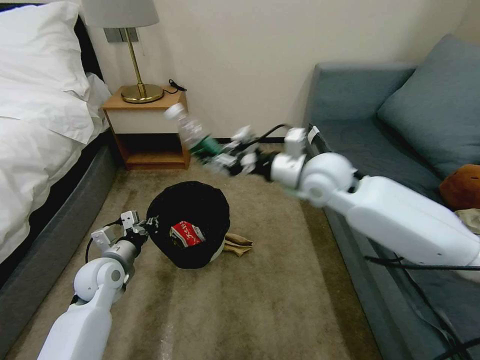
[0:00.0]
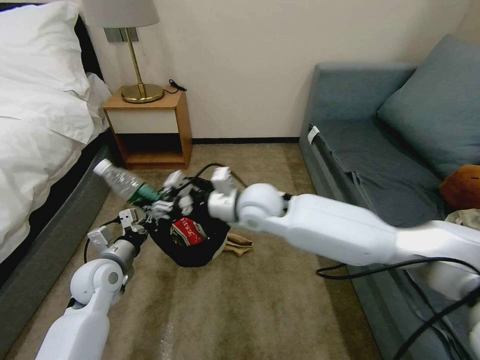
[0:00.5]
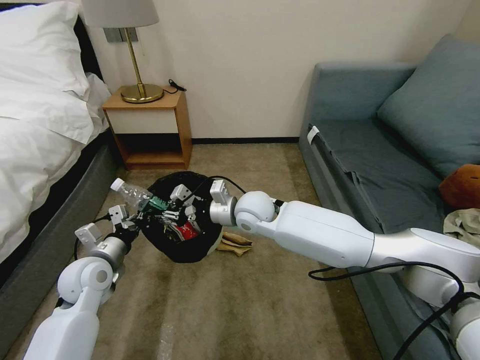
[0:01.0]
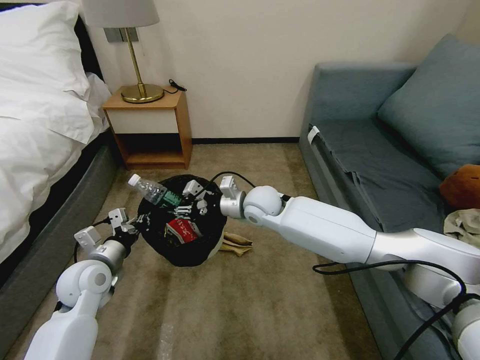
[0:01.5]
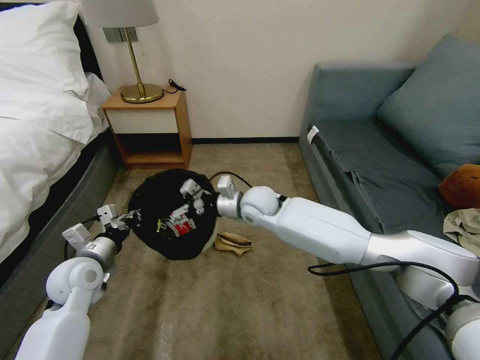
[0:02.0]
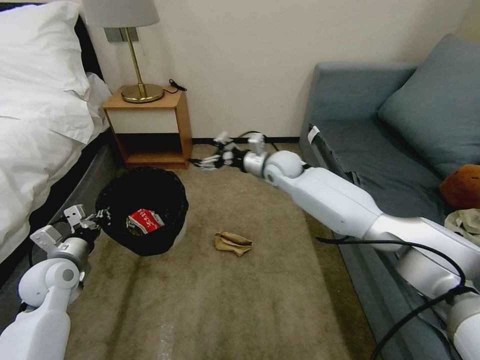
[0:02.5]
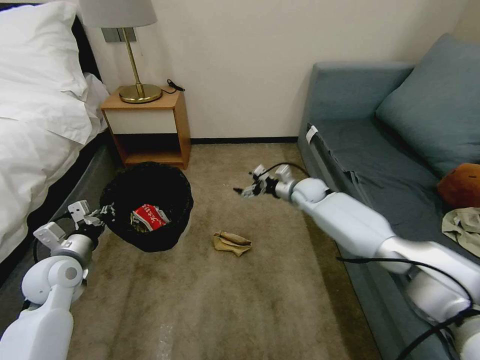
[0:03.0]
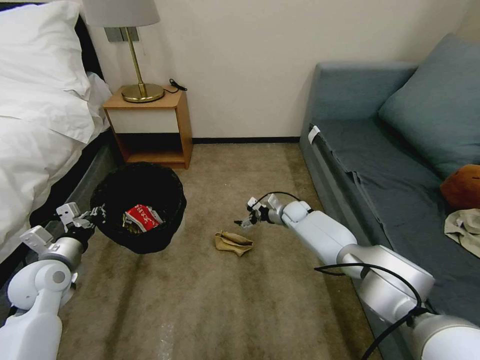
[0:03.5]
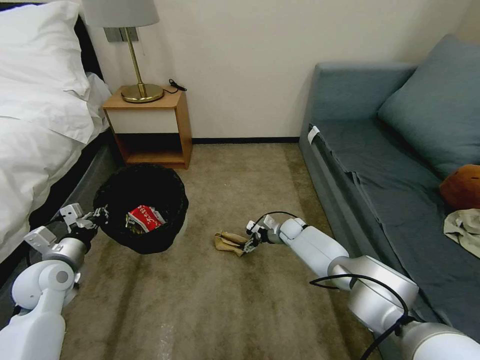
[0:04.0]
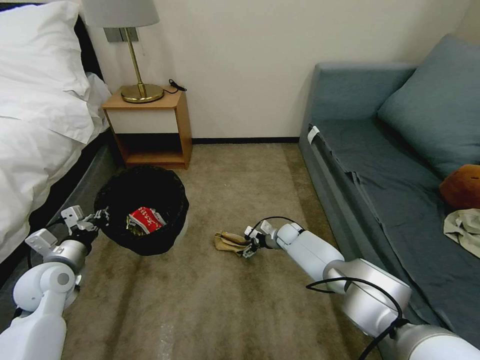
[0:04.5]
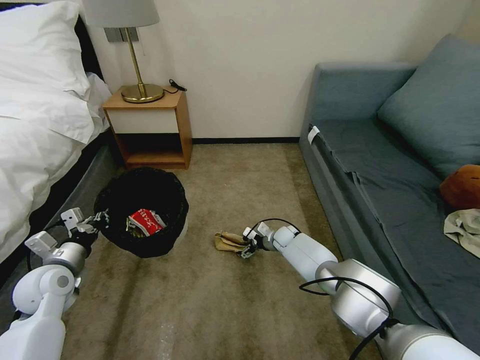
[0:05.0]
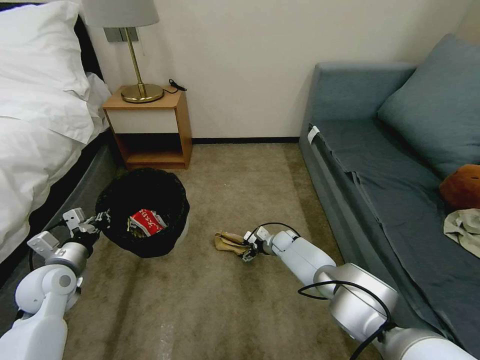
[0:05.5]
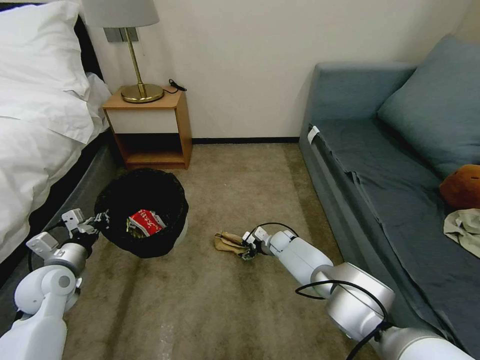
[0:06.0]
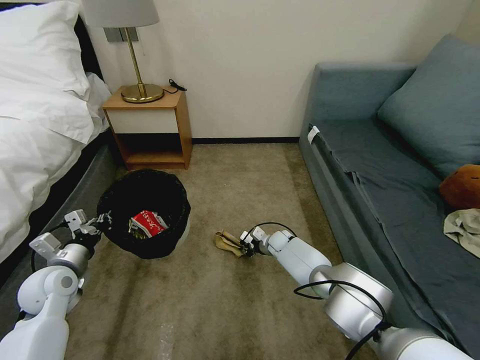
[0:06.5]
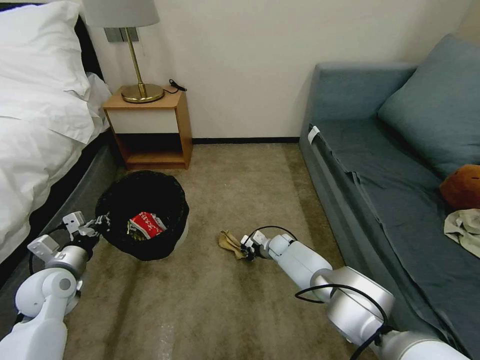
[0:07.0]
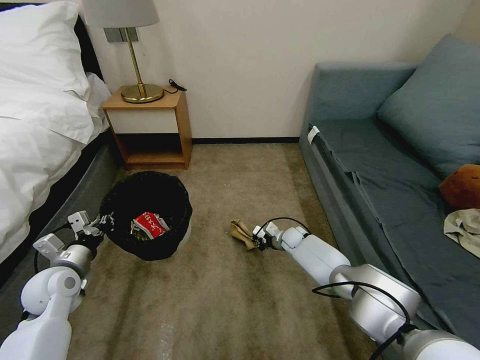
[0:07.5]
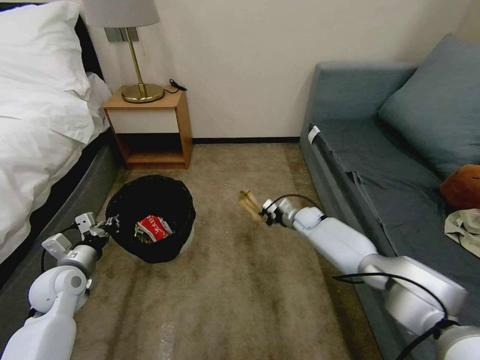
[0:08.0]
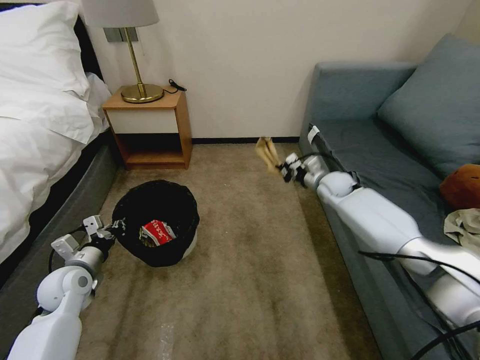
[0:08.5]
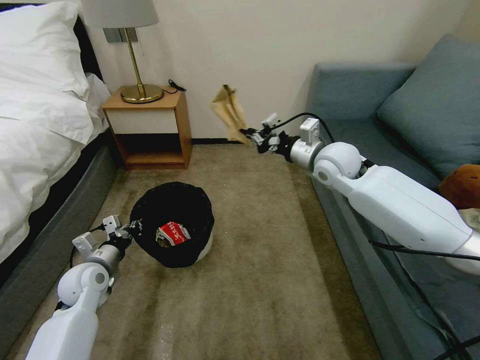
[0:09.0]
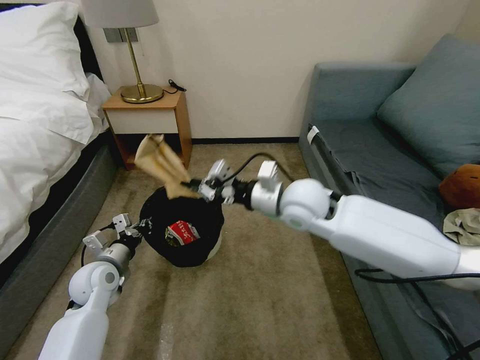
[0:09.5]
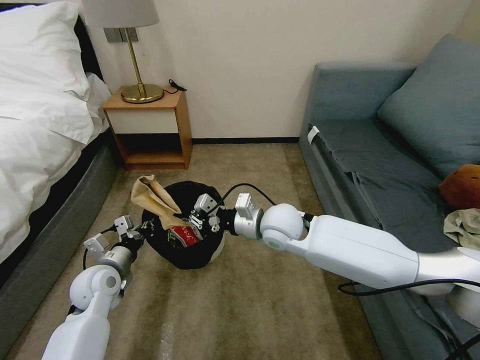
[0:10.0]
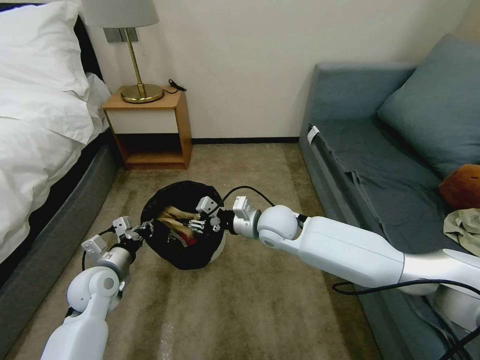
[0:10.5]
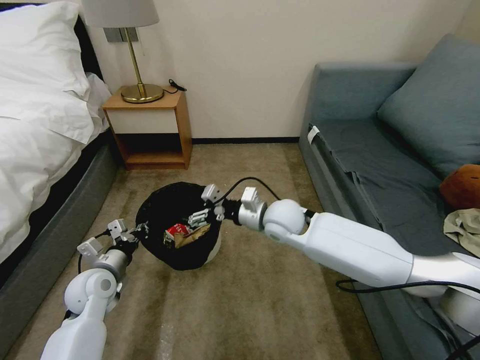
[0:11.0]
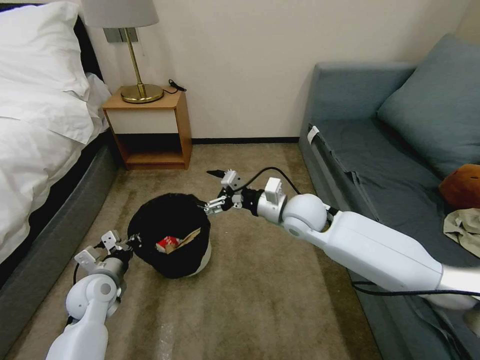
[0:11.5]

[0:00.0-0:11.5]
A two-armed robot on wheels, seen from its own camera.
Task of the whole recording: Pick up the trash bin, then pick up the garbage on the floor and place it into the trash bin.
0:00.0 to 0:02.0: The left gripper shifts by about 5 cm; the right gripper travels to the left and downward by approximately 20 cm, and opens its fingers.
0:02.0 to 0:04.0: The left gripper goes some 5 cm to the left; the right gripper travels downward and to the right by some 30 cm.
0:04.0 to 0:06.0: The right gripper moves approximately 5 cm.
0:06.0 to 0:07.5: The right gripper closes up.
0:07.5 to 0:09.5: The right gripper moves upward, roughly 35 cm. The left gripper shifts roughly 5 cm to the right.
0:09.5 to 0:11.5: The right gripper shifts approximately 5 cm downward, and opens its fingers.

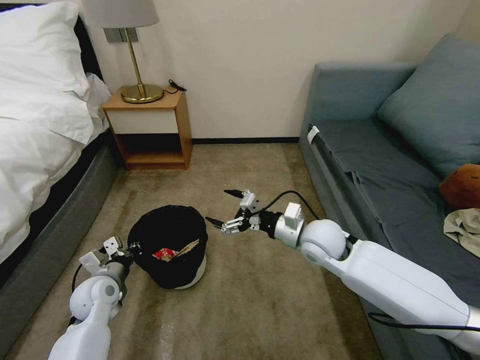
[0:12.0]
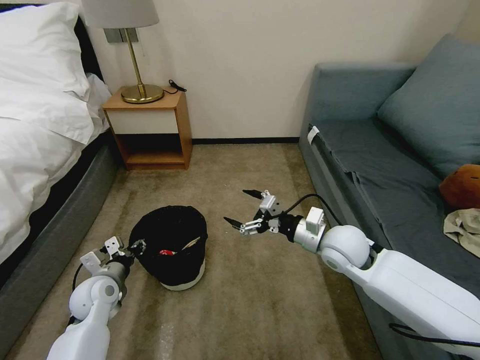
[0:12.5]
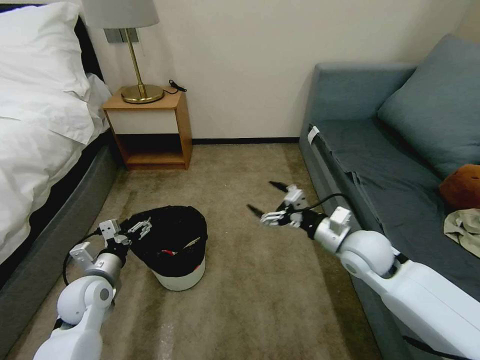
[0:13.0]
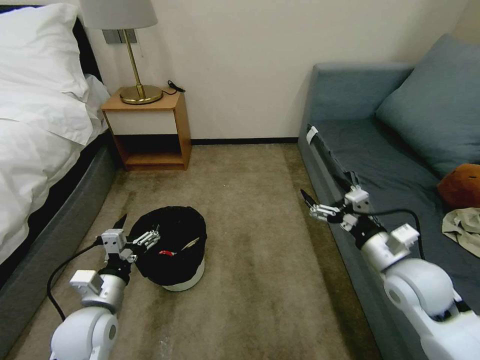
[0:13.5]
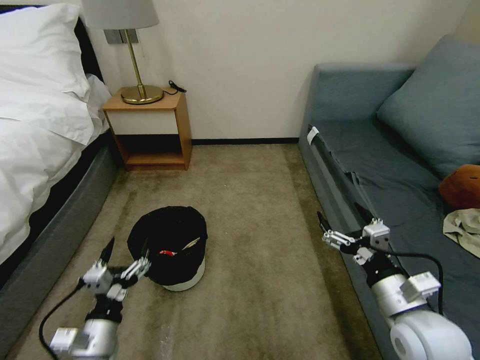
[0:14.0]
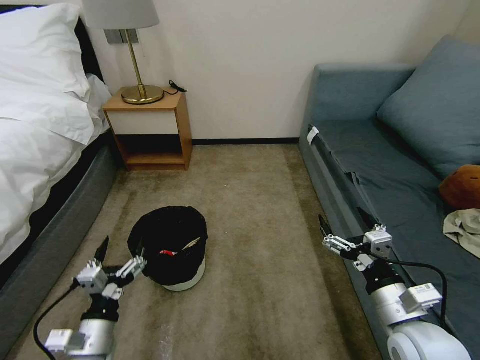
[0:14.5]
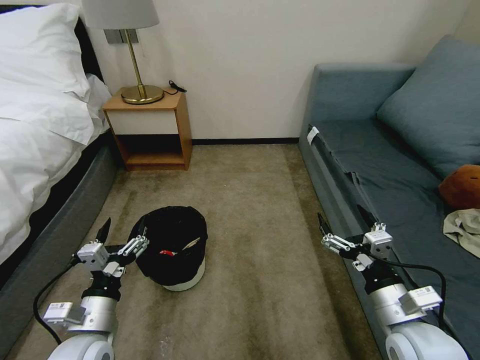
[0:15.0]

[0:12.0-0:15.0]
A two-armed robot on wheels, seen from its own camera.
Task of the whole recording: Pick up the trash bin, then pick up the garbage on the floor and place it into the trash bin.
0:12.0 to 0:13.5: The right gripper moves to the right and backward, approximately 20 cm. Meanwhile the left gripper is displaced backward, upward and to the right by roughly 10 cm, and opens.
0:13.5 to 0:15.0: The right gripper moves backward, some 10 cm.

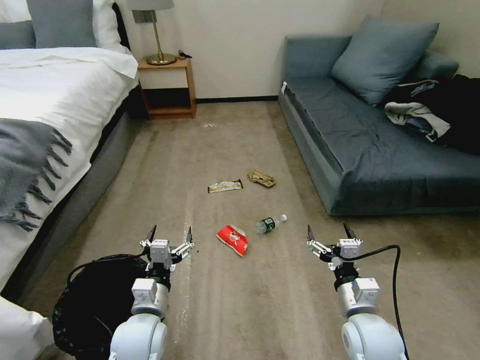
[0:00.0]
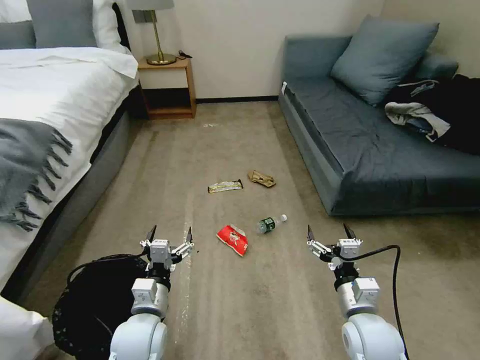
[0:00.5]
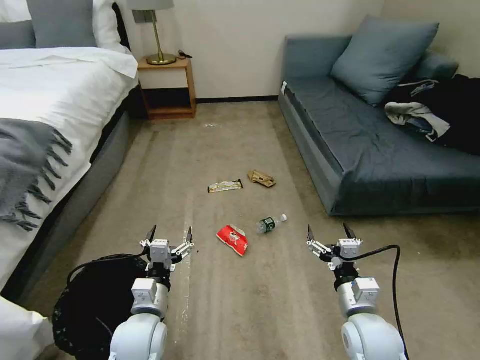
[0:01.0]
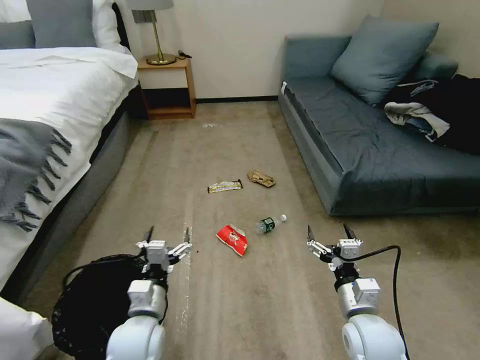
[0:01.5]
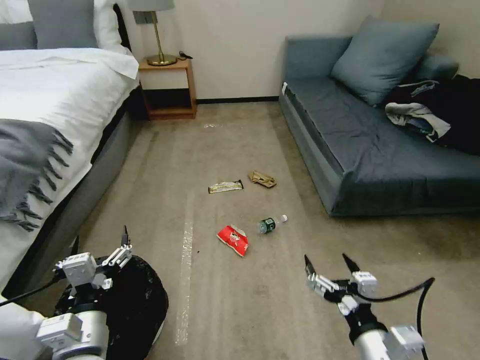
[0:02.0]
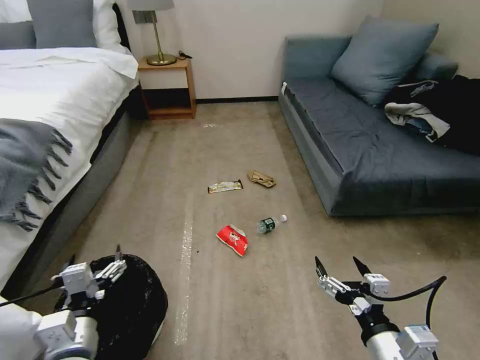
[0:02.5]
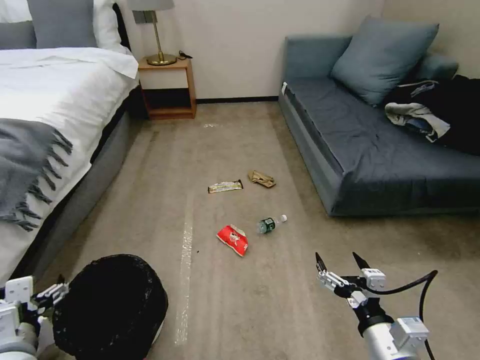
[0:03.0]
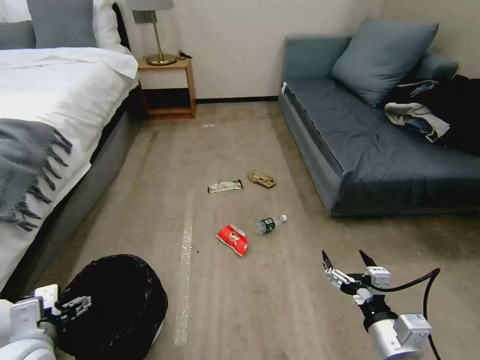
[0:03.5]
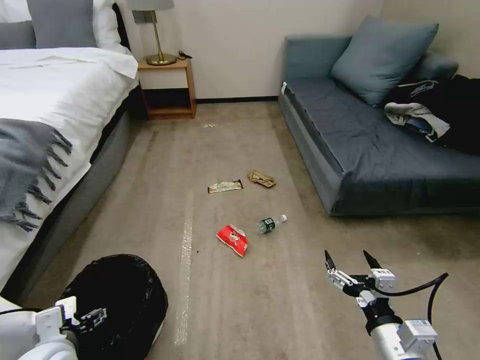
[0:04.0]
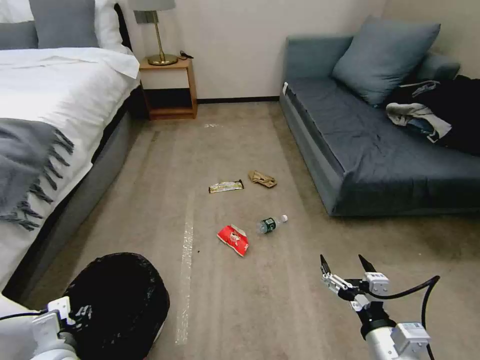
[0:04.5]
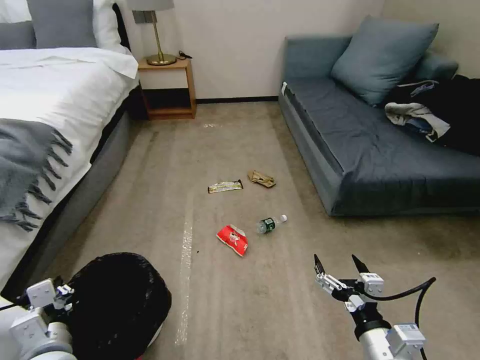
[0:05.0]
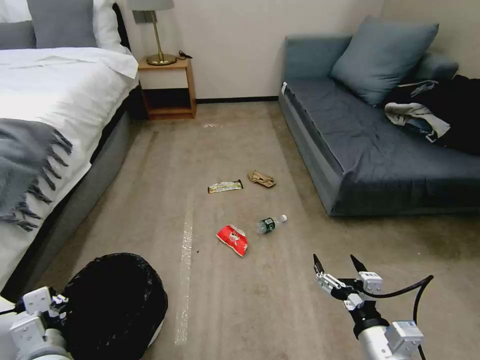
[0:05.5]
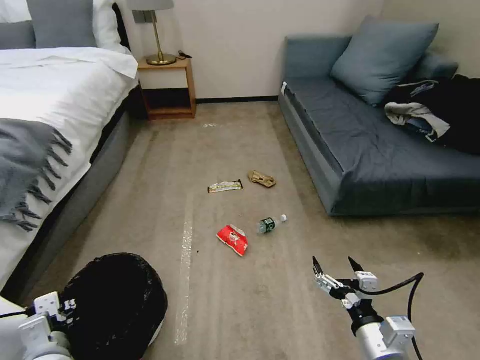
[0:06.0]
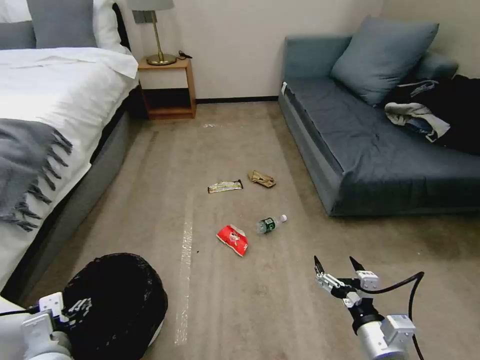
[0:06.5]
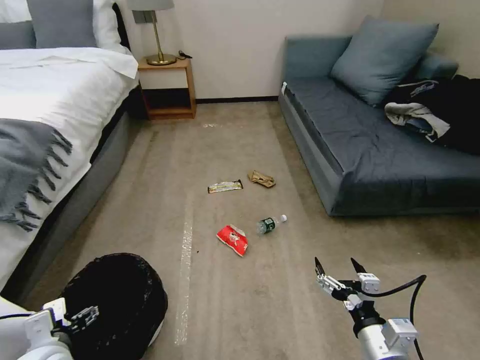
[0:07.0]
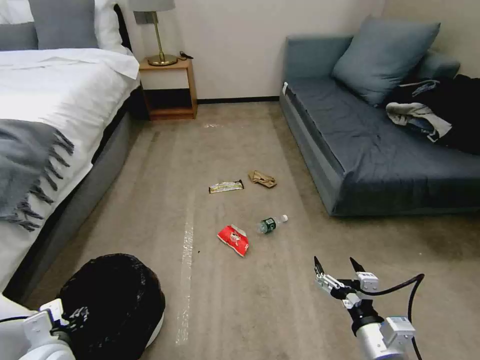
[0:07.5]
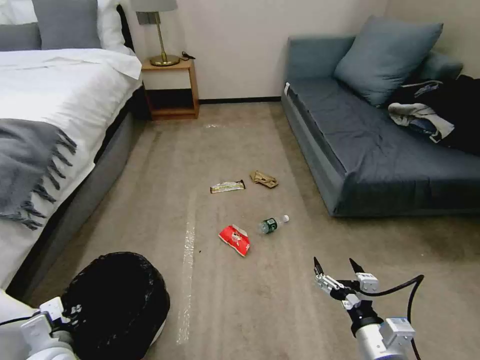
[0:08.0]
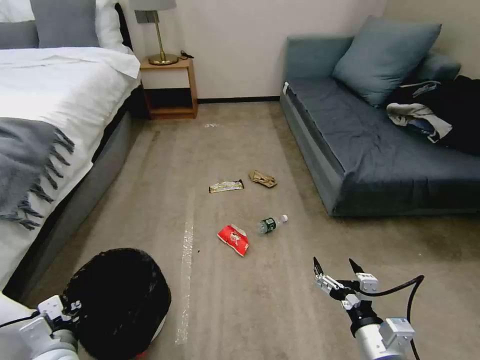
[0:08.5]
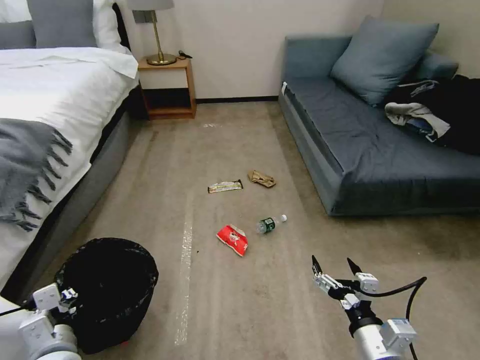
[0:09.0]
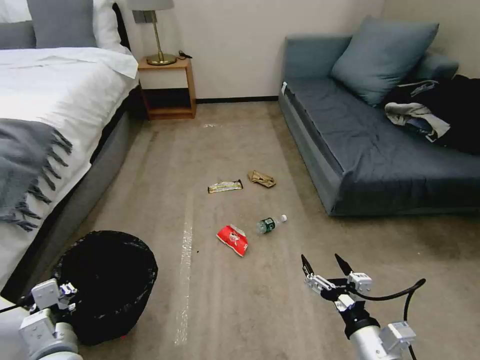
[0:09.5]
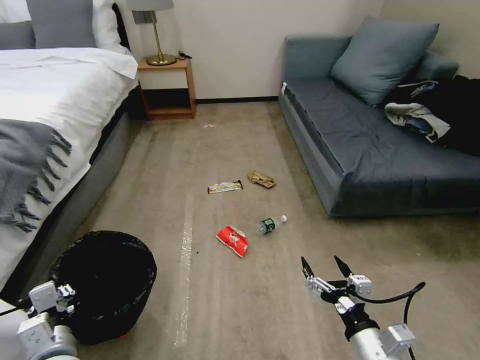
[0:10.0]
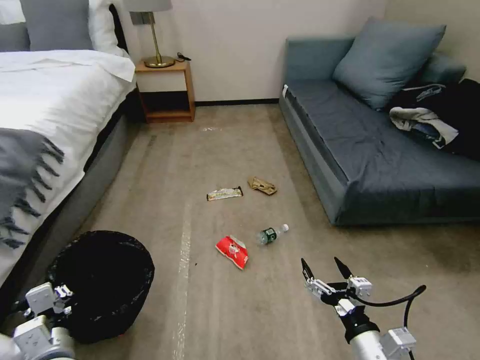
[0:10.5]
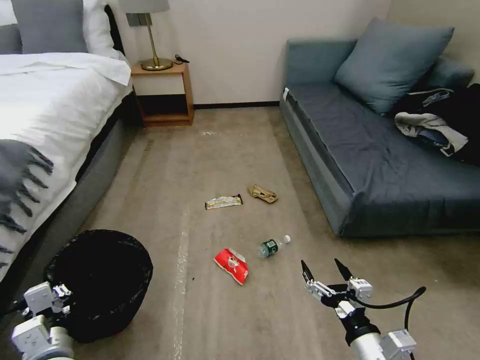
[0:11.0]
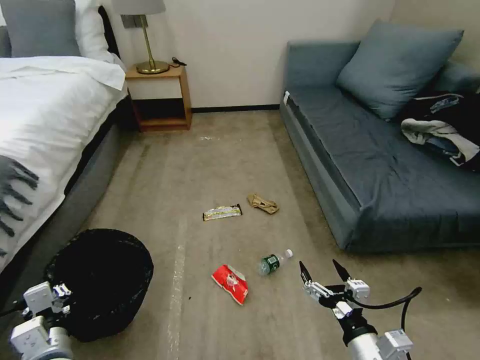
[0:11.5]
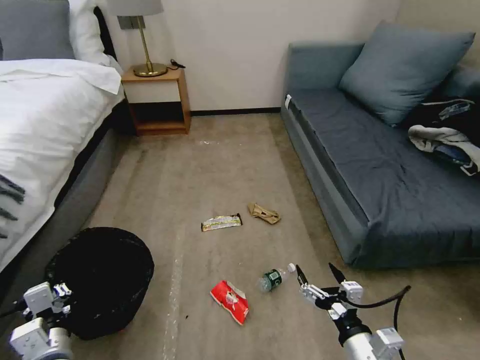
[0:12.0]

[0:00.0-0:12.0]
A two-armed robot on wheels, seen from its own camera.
Task of the whole recording: Pick up the trash bin, then pick up the garbage on the floor and place it into the trash bin.
0:02.0 to 0:04.0: The left gripper travels to the left and downward by some 10 cm.
0:04.0 to 0:06.0: The left gripper closes.
0:06.0 to 0:08.0: The left gripper opens, then closes again.
